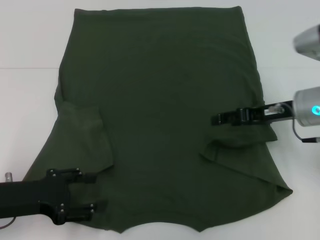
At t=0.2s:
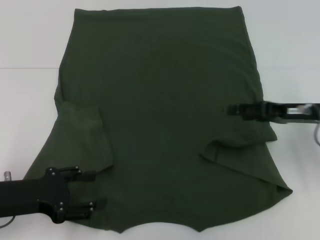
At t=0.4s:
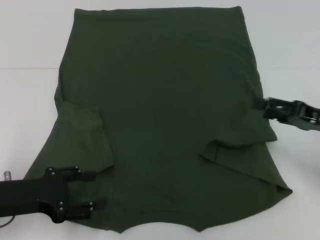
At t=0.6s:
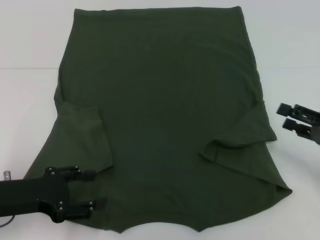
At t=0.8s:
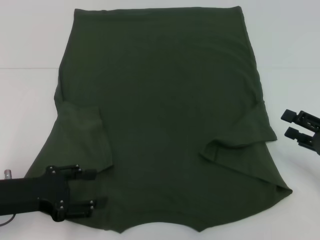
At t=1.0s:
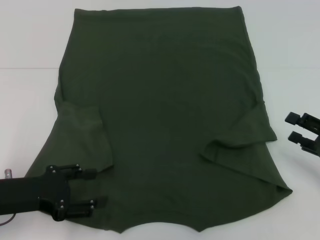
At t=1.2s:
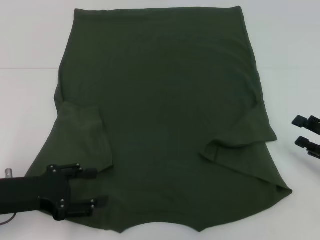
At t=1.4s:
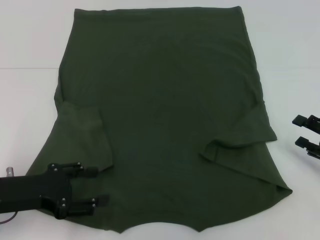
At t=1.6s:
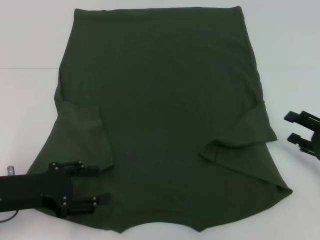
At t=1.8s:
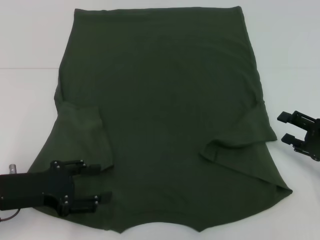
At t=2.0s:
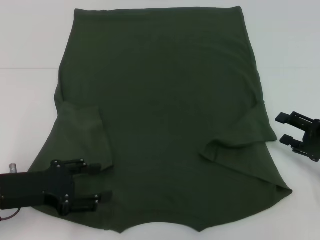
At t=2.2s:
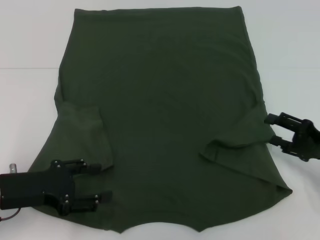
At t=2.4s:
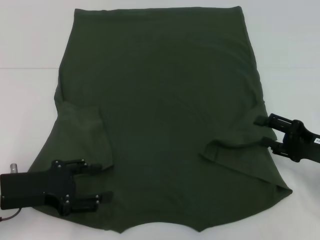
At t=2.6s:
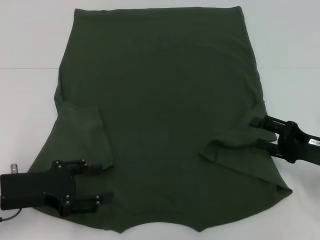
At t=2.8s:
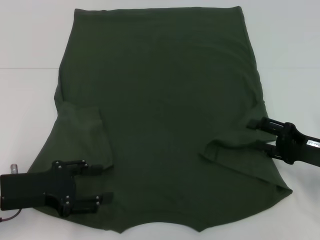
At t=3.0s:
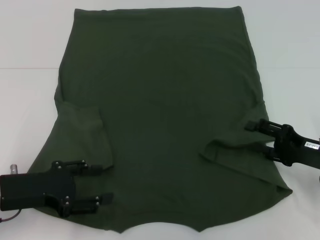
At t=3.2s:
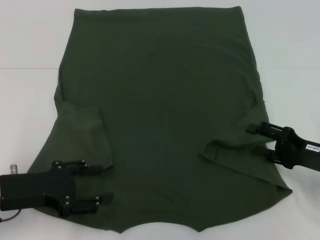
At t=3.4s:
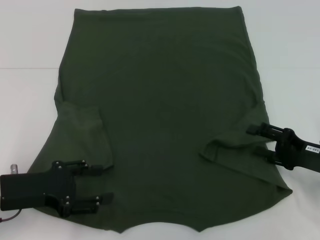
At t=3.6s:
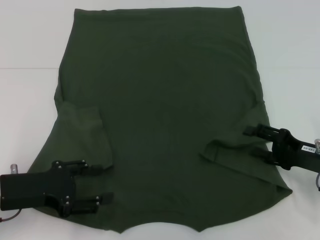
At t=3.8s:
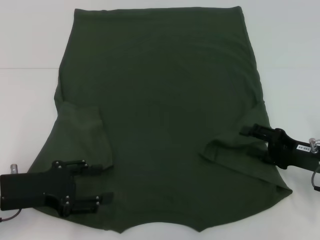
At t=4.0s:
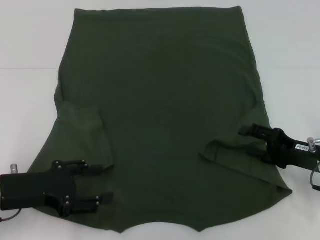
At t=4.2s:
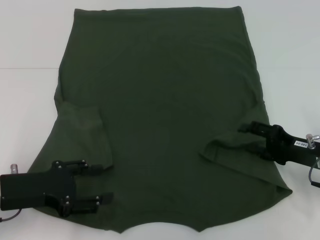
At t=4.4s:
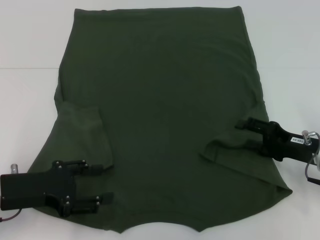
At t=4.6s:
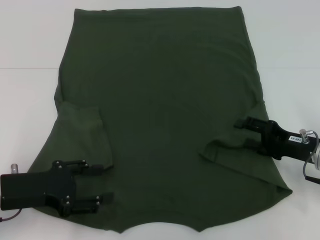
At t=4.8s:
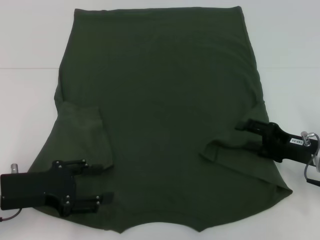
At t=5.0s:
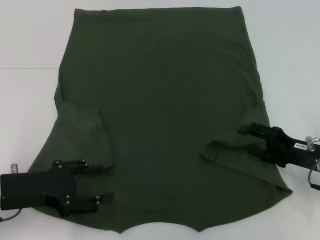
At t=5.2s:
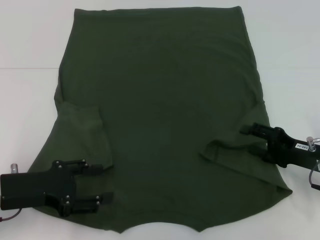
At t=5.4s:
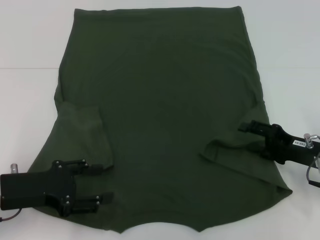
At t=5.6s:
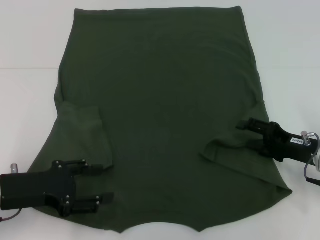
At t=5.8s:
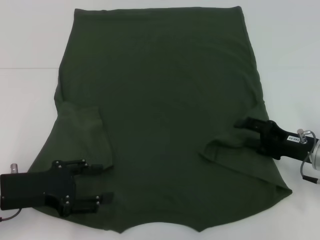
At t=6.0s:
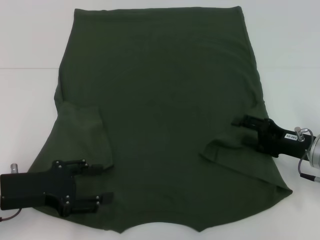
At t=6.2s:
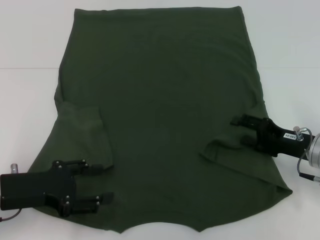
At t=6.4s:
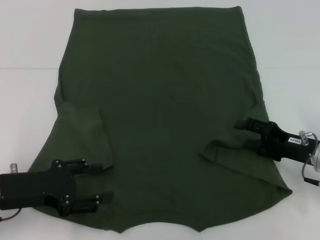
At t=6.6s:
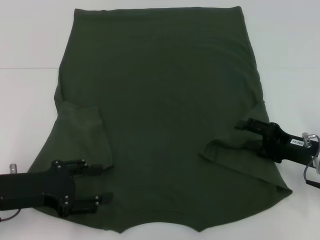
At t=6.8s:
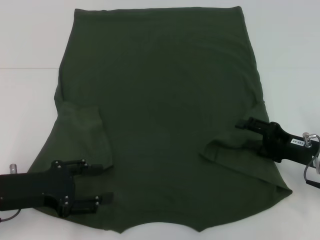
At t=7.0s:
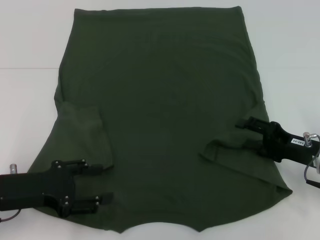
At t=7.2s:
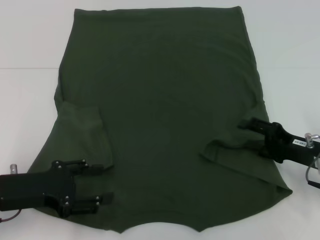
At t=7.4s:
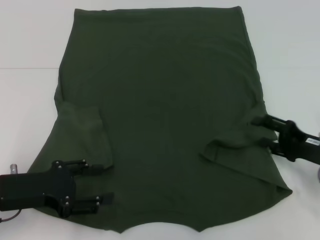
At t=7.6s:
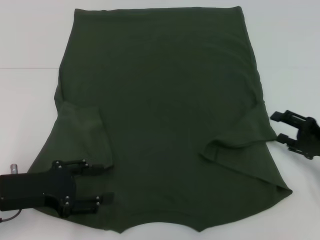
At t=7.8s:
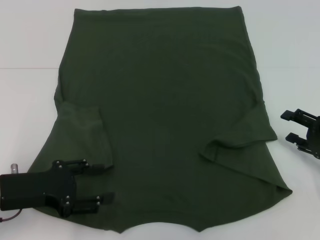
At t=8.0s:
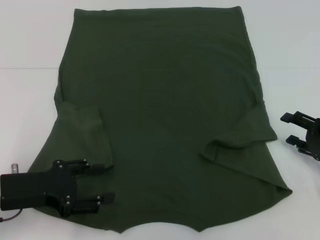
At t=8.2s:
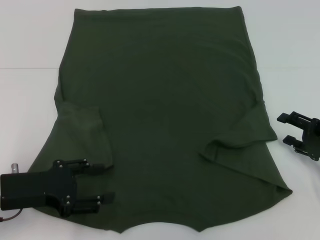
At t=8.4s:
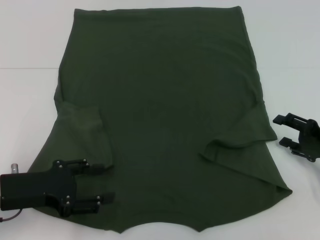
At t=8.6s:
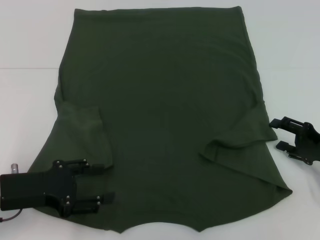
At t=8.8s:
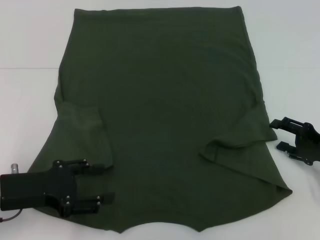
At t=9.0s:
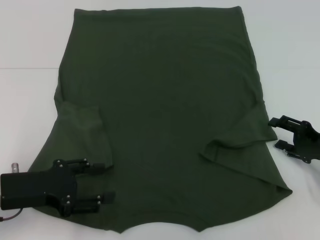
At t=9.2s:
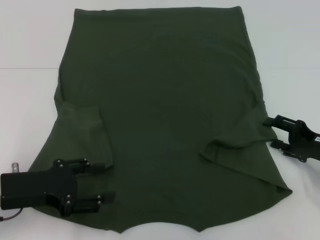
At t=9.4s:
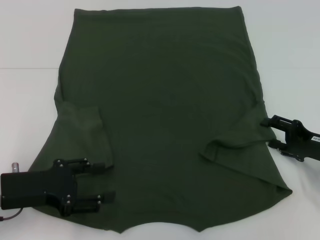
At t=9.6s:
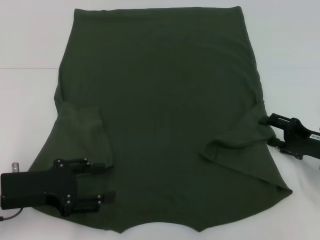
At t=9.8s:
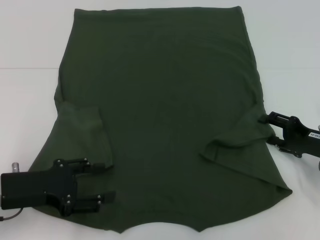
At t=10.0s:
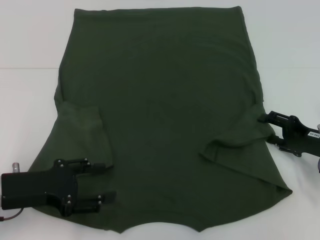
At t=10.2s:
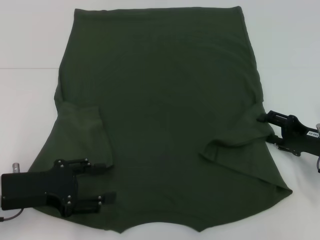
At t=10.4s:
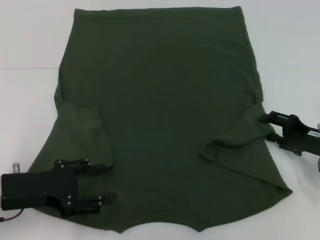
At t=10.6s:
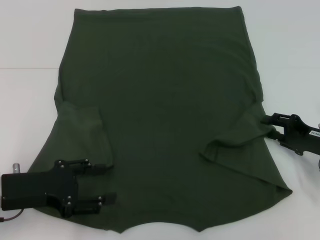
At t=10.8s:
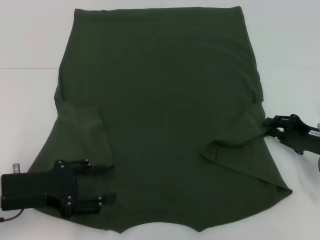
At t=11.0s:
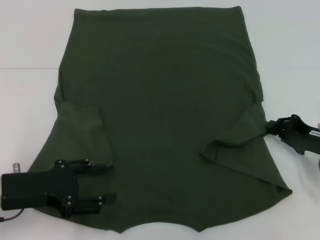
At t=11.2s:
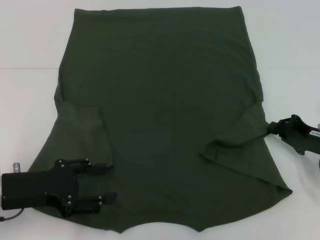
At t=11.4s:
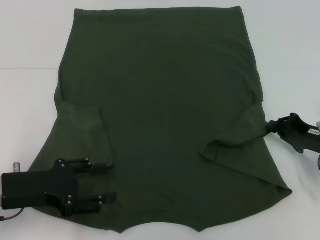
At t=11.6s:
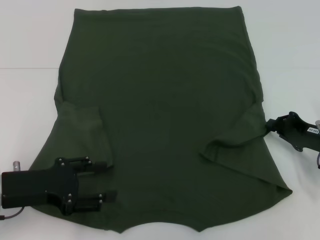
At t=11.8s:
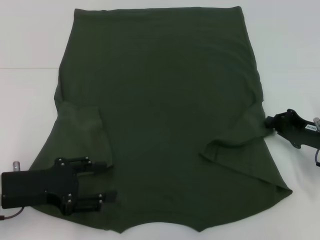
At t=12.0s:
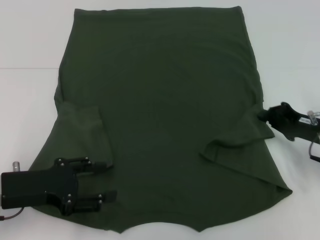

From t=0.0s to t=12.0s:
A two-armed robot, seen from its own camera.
From t=0.0s to t=1.6s: The right gripper travels to the right, backward and downward by some 15 cm.
From t=1.6s to t=3.0s: There are only small adjustments of the grippers.
From t=3.0s to t=4.4s: The grippers stay close to where they were, moving slightly.
From t=4.4s to t=6.0s: The two grippers keep their place.
From t=6.0s to t=7.6s: The right gripper moves to the right, approximately 5 cm.
From t=7.6s to t=10.4s: The grippers make only small movements.
From t=10.4s to t=12.0s: The right gripper closes up.

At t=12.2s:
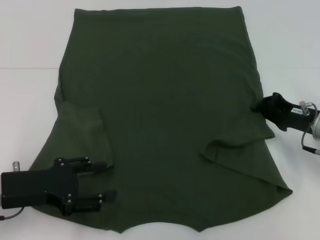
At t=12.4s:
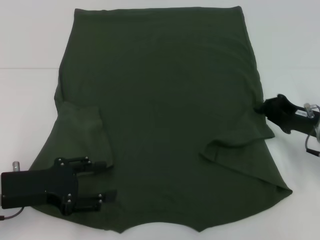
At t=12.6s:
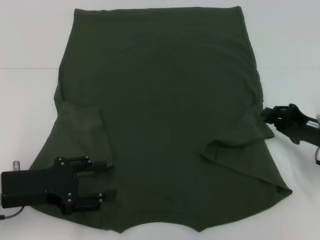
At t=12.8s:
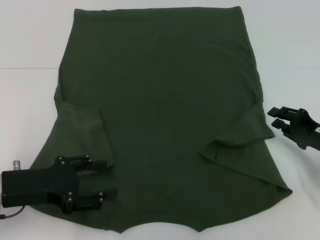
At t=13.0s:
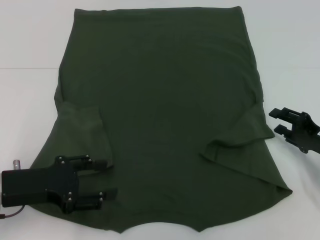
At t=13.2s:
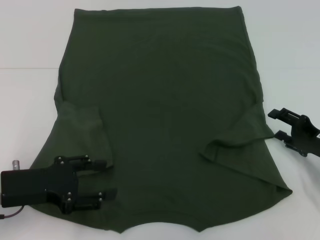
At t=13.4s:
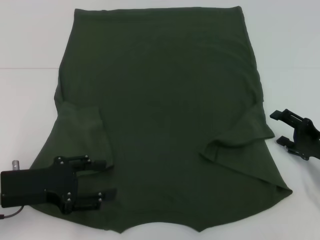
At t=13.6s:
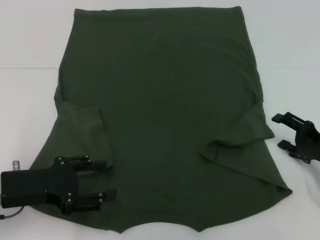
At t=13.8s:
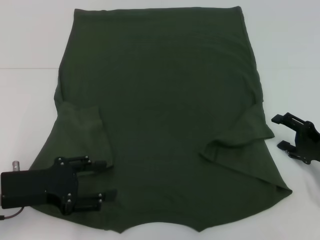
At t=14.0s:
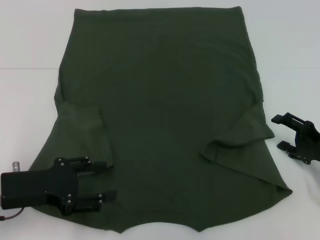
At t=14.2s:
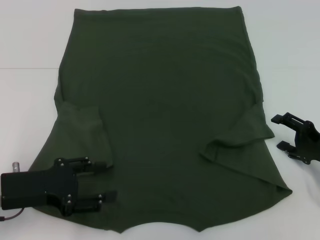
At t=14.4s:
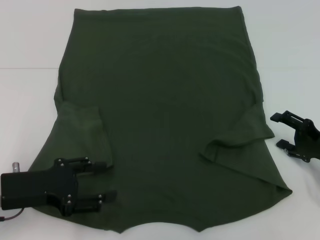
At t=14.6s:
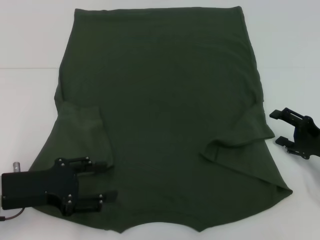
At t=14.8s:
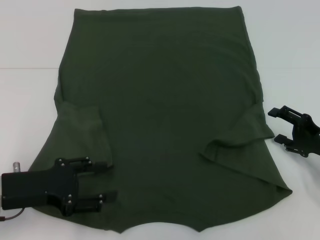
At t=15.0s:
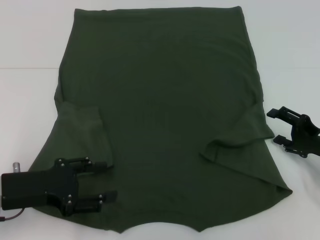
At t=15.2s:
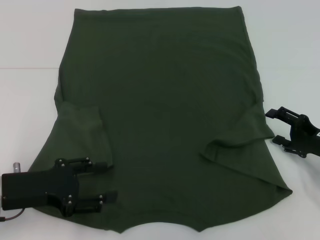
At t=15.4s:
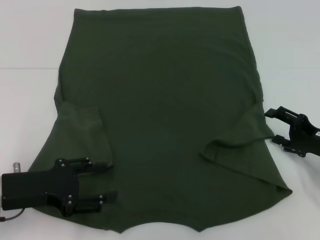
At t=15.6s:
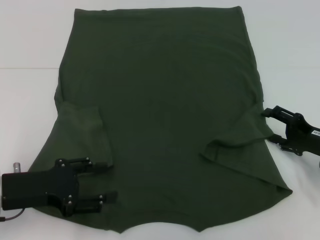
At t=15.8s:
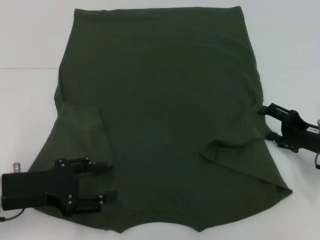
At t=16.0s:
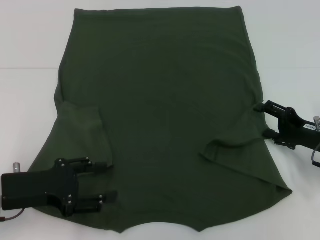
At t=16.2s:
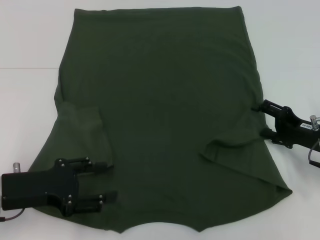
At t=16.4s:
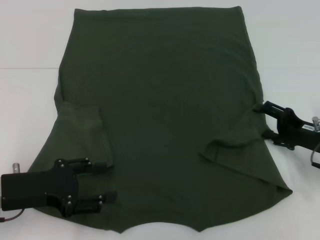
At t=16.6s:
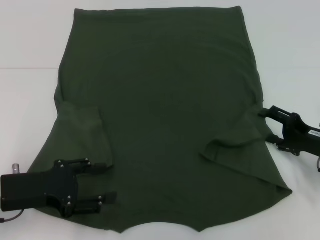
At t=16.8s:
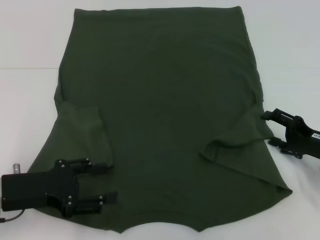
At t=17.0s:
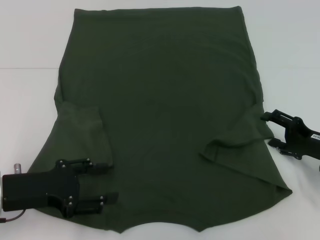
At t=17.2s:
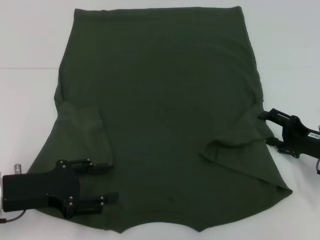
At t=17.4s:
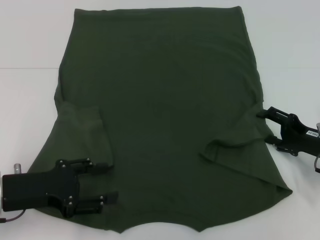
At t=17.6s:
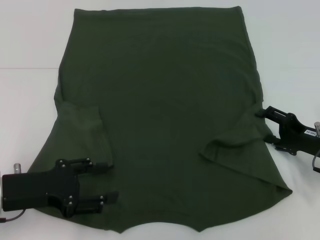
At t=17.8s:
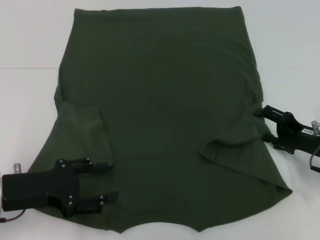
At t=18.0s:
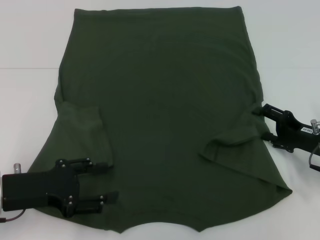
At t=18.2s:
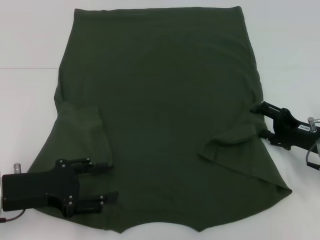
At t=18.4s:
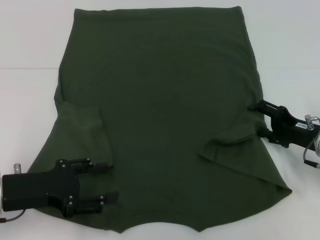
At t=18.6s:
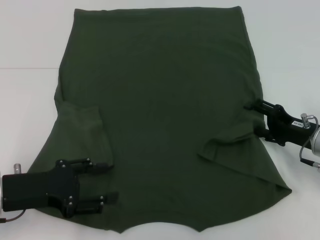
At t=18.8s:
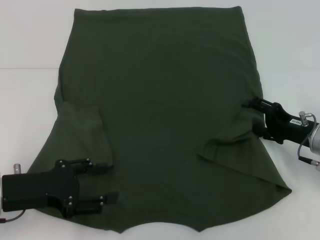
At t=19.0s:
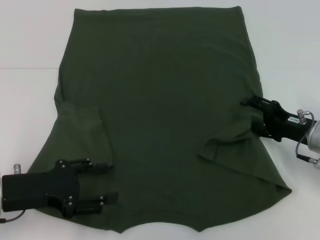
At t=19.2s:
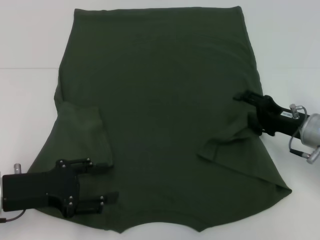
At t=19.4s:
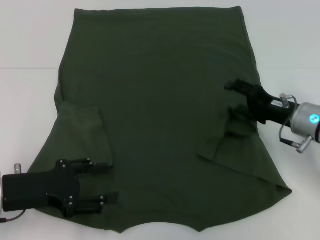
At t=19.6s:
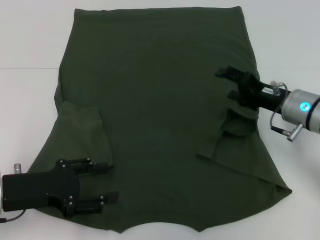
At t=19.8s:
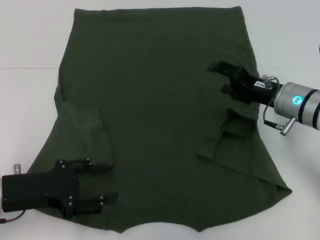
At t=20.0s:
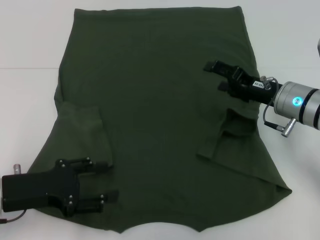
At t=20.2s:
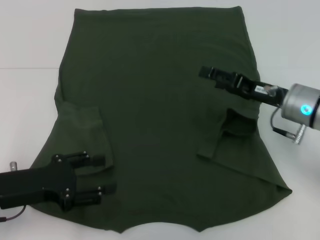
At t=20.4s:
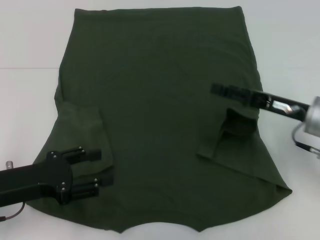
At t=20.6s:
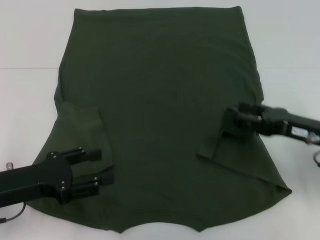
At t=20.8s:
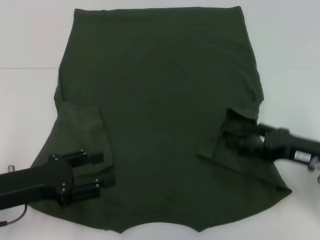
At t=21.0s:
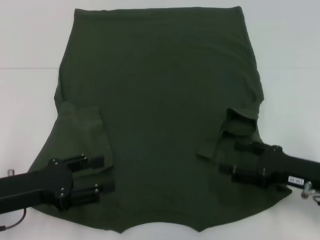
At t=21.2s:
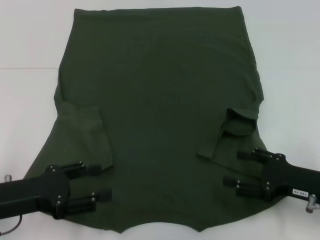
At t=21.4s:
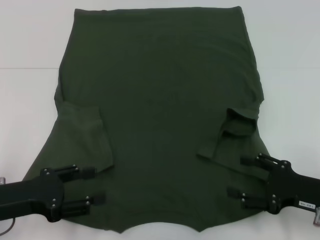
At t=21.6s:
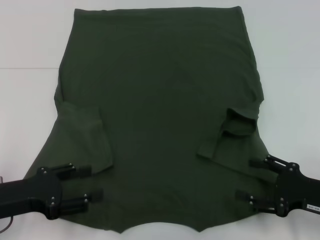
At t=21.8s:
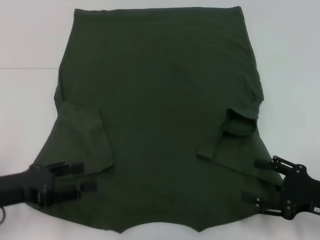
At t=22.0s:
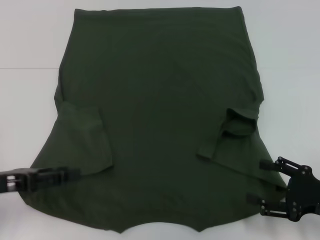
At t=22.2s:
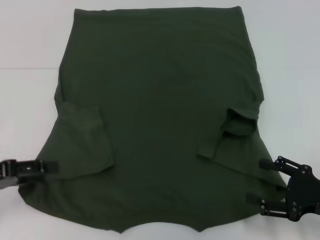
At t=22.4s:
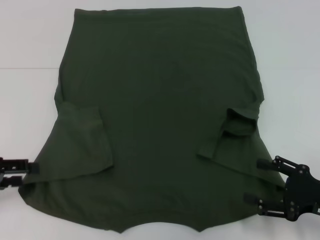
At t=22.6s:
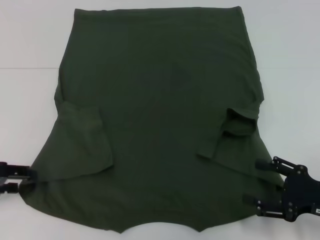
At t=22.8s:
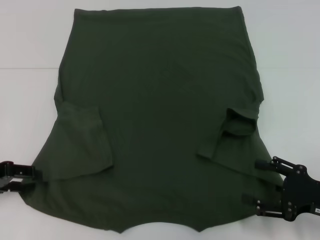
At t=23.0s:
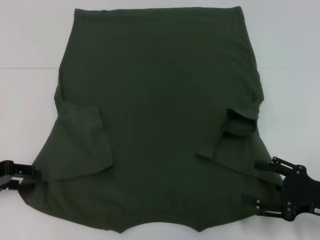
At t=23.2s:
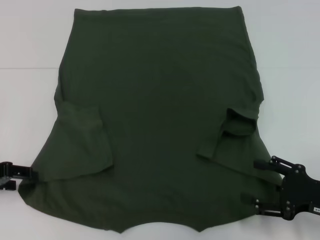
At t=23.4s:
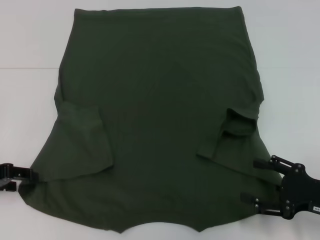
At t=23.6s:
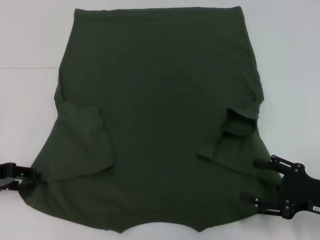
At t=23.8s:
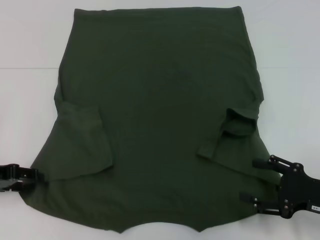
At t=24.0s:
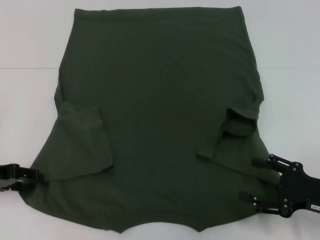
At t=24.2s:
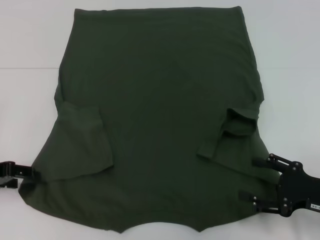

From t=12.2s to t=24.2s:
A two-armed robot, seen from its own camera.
Step, from t=12.2s to t=19.4s: Fold the bottom right sleeve with your right hand.
From t=12.2s to t=13.8s: The right gripper is displaced backward by some 5 cm, and opens its fingers.
From t=13.8s to t=18.2s: There are only small adjustments of the grippers.
From t=18.2s to t=19.8s: The right gripper goes approximately 10 cm to the left and forward.
From t=19.8s to t=21.2s: The right gripper goes approximately 15 cm backward and to the right.
From t=21.2s to t=22.6s: The left gripper moves to the left, some 10 cm.
From t=22.6s to t=24.2s: The grippers move only a little.
